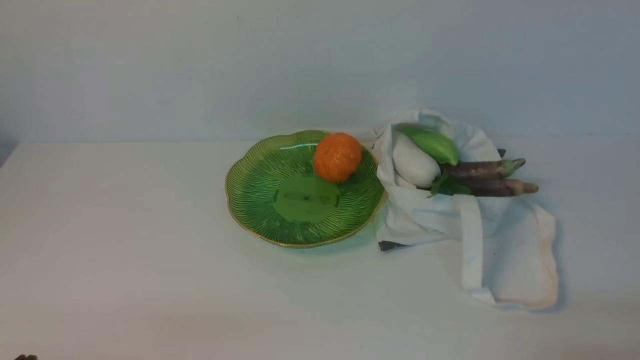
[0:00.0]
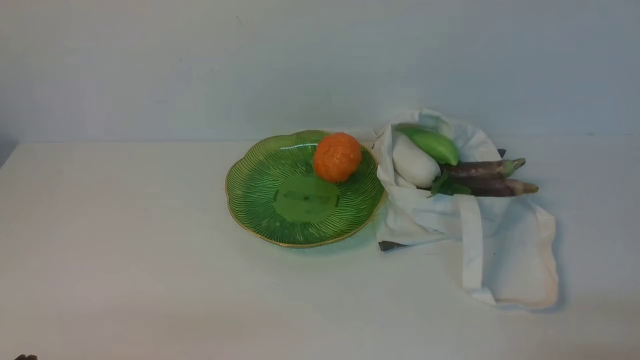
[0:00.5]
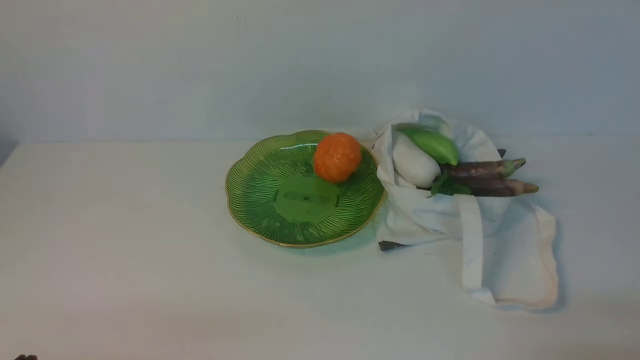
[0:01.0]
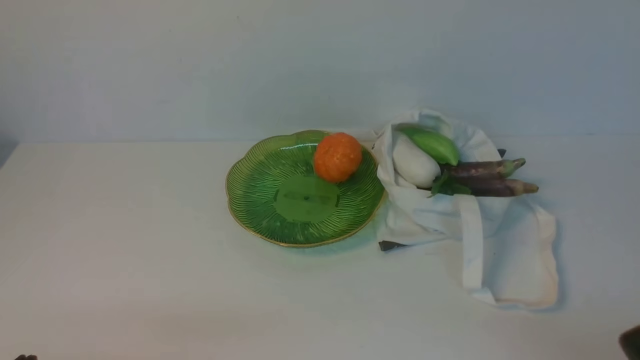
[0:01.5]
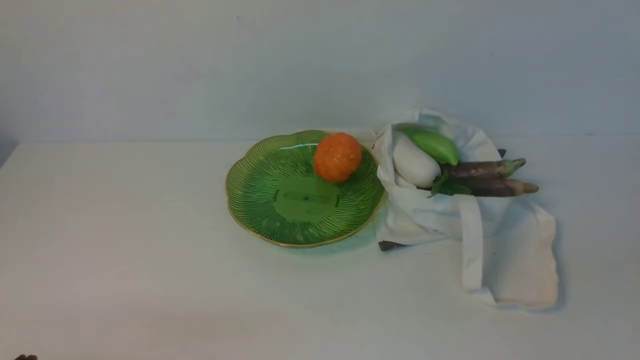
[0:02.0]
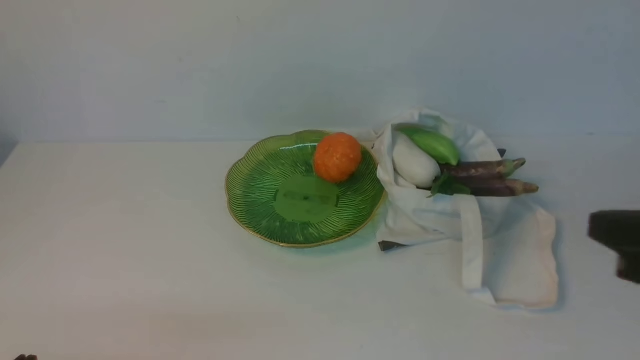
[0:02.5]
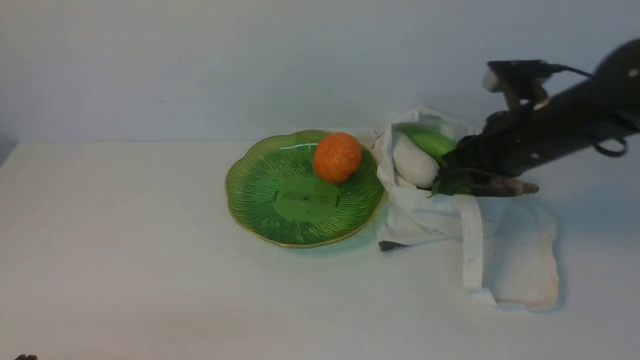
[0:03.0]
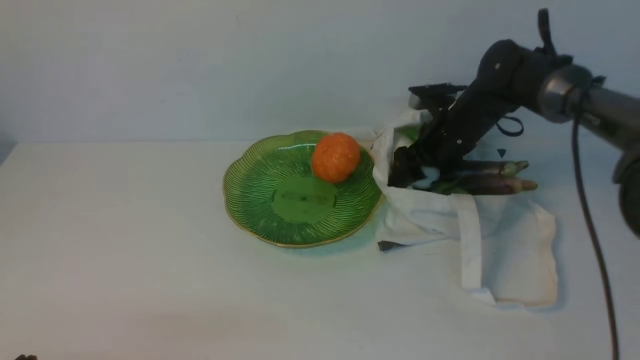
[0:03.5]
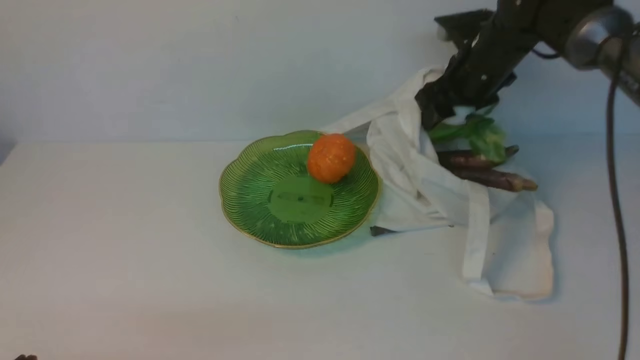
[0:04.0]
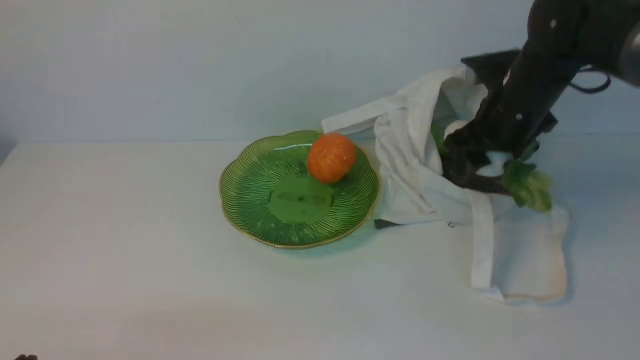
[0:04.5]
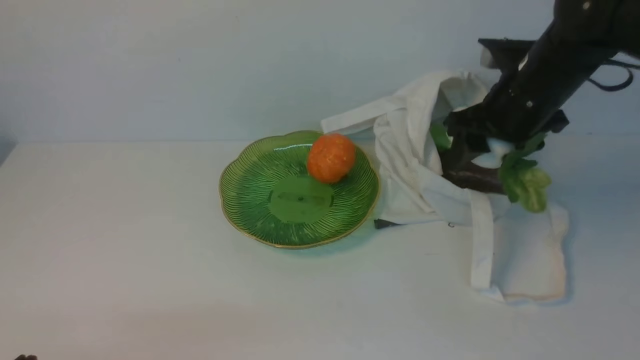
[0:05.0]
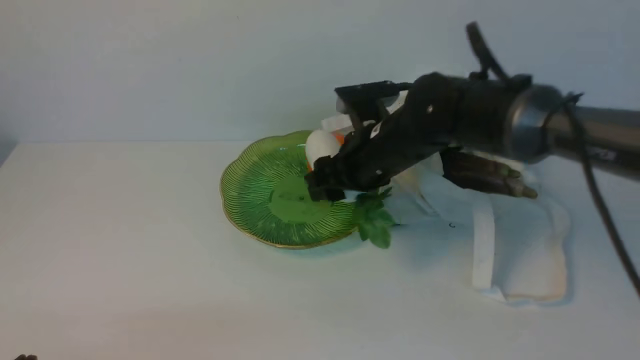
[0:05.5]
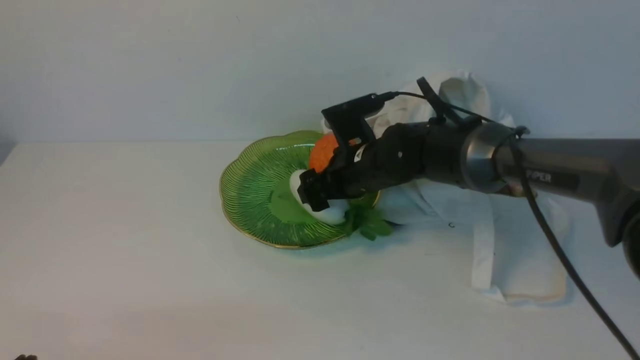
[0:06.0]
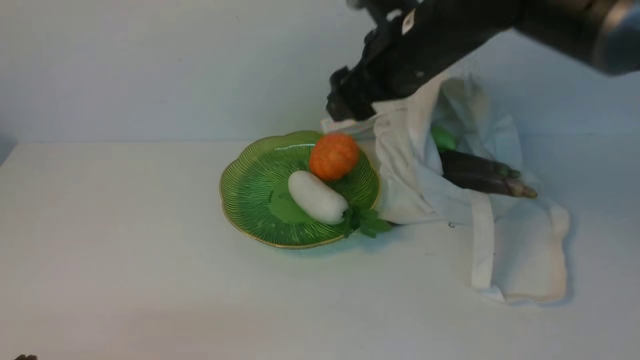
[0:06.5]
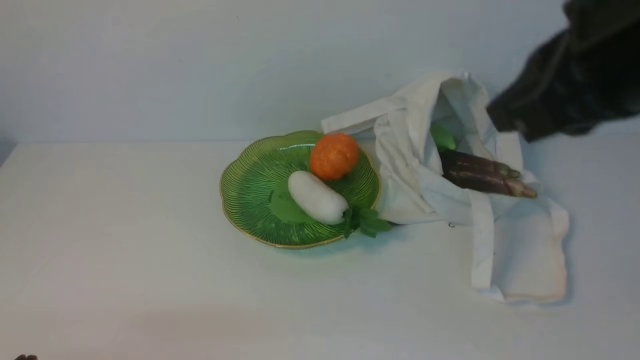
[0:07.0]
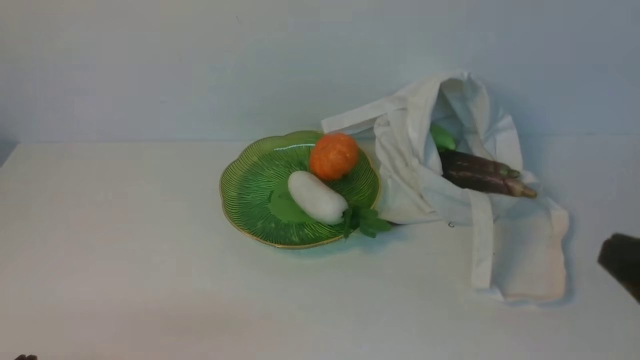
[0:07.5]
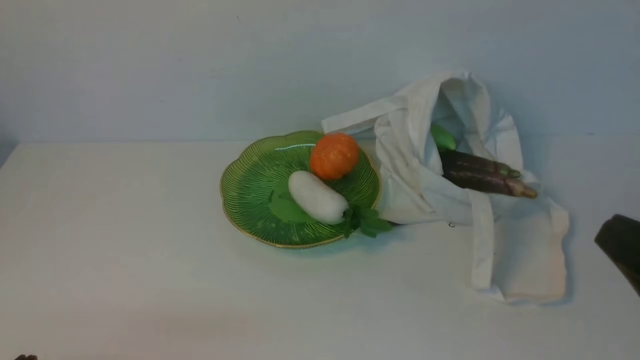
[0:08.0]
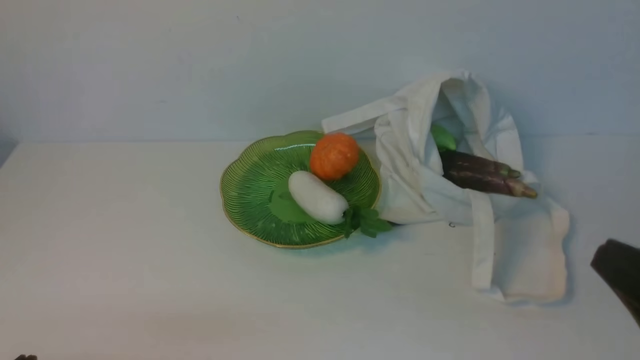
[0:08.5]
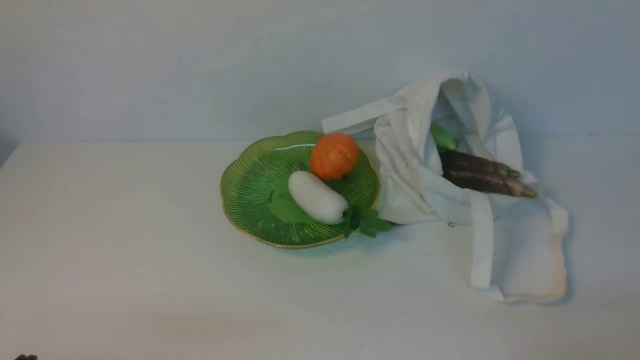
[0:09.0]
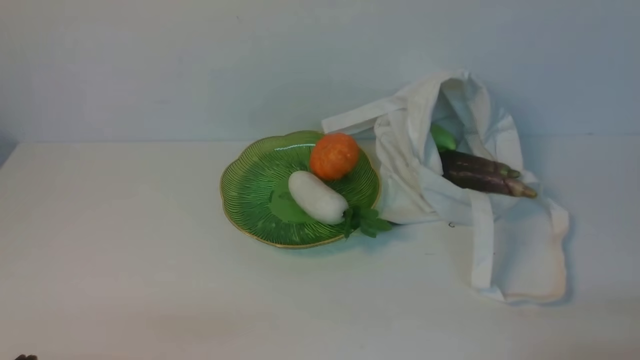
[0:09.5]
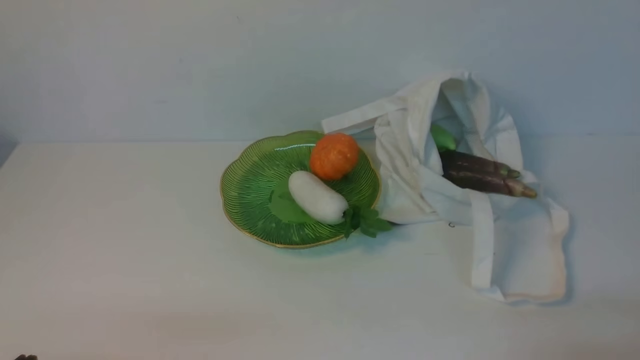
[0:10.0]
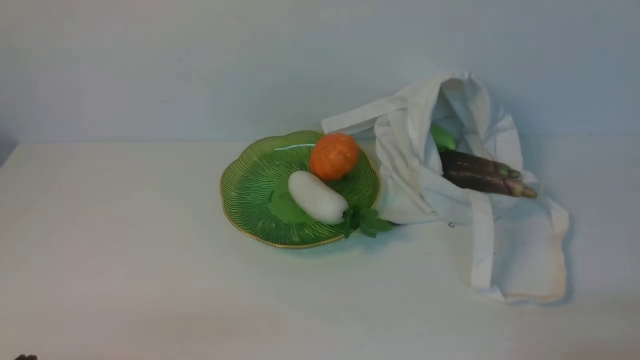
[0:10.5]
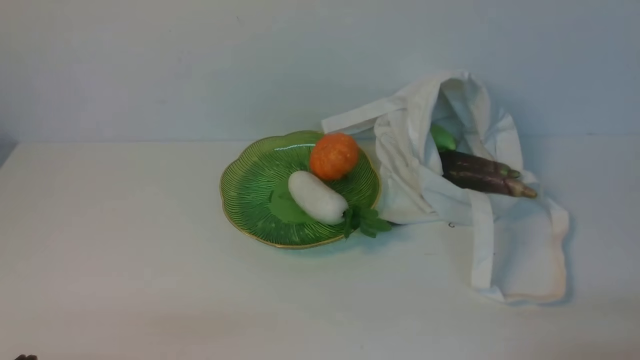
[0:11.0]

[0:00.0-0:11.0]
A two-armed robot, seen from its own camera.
Task of the whole recording: take vegetables from cloth bag on white table place on plate.
Step, 0:00.0 to 0:03.5: Grasp the radish with right gripper.
Step, 0:04.0 to 0:06.0: Place the radish on the plate with right gripper.
0:02.0 to 0:03.5: The right gripper travels forward by roughly 50 cm, and opens.
0:03.5 to 0:05.5: The right gripper moves to the left and backward, roughly 15 cm.
0:05.5 to 0:07.5: The right gripper moves backward and to the right, approximately 35 cm, and closes its fingers.
0:07.5 to 0:09.0: The right gripper shifts approximately 15 cm downward.
